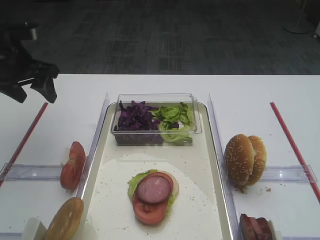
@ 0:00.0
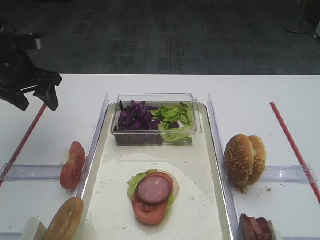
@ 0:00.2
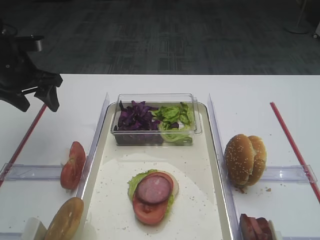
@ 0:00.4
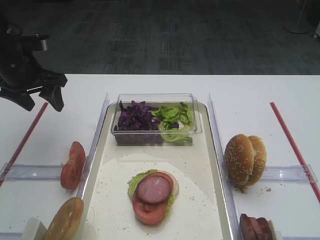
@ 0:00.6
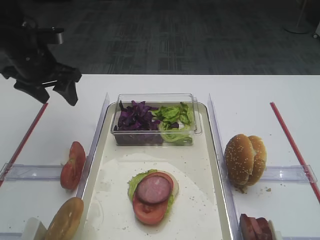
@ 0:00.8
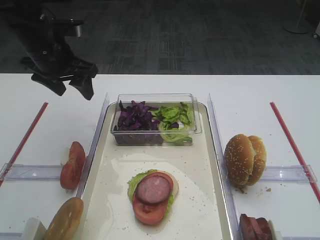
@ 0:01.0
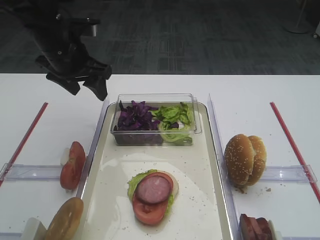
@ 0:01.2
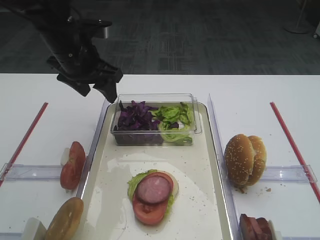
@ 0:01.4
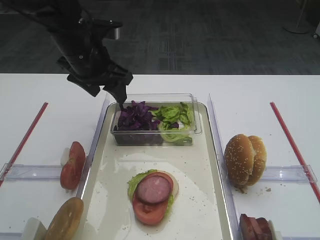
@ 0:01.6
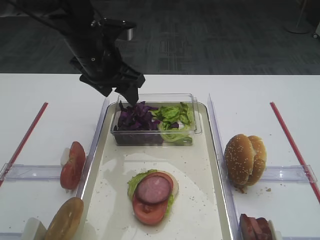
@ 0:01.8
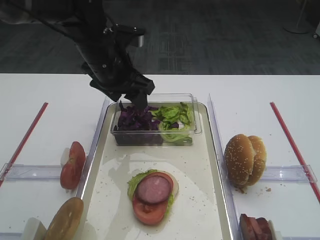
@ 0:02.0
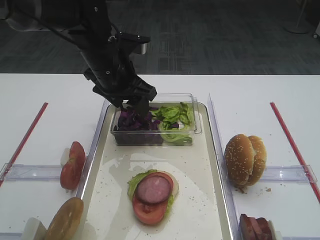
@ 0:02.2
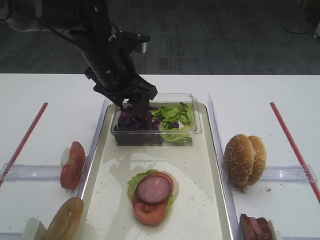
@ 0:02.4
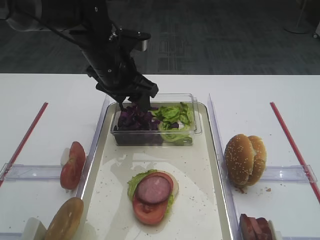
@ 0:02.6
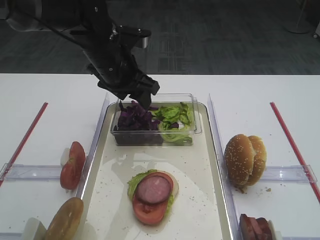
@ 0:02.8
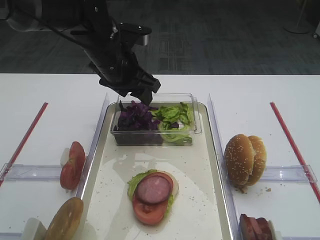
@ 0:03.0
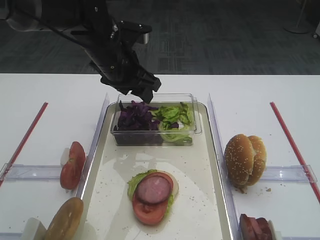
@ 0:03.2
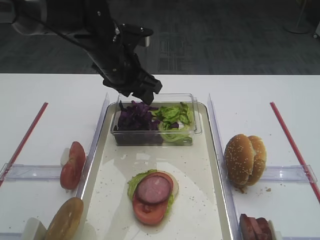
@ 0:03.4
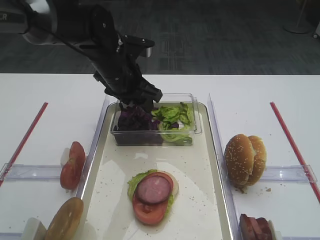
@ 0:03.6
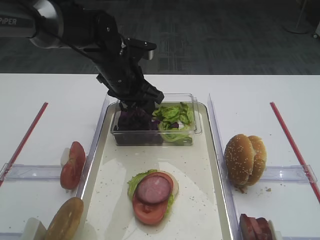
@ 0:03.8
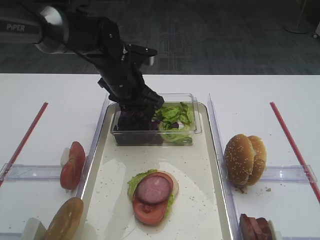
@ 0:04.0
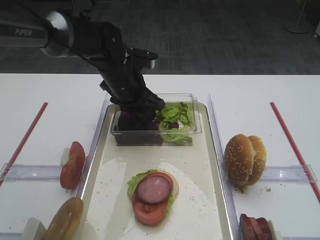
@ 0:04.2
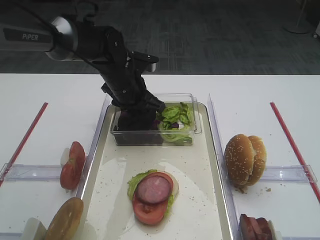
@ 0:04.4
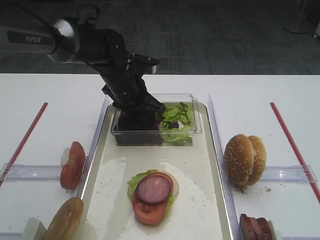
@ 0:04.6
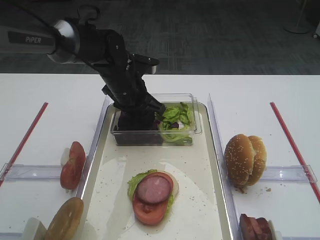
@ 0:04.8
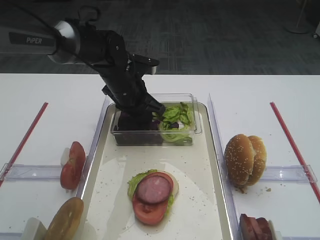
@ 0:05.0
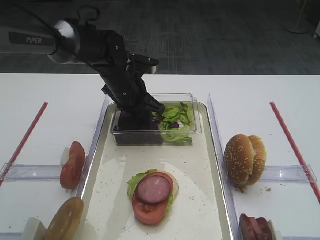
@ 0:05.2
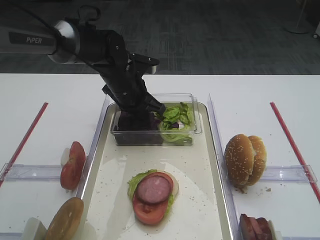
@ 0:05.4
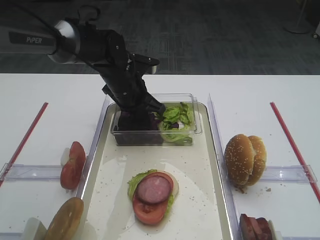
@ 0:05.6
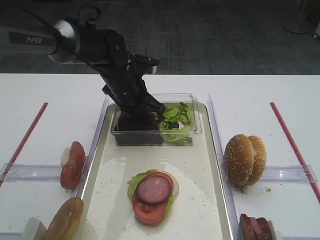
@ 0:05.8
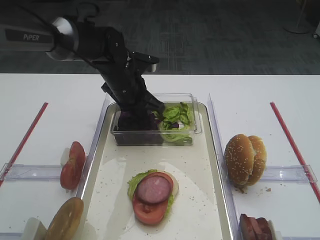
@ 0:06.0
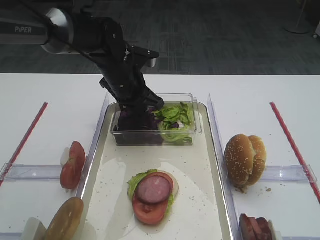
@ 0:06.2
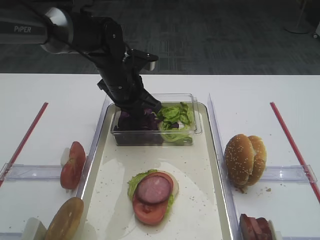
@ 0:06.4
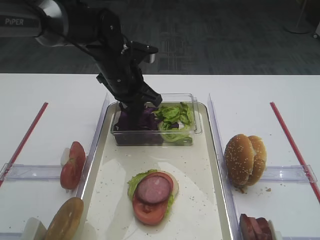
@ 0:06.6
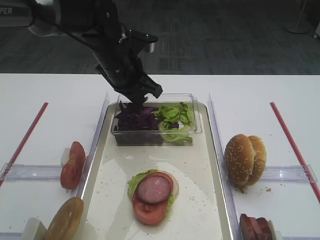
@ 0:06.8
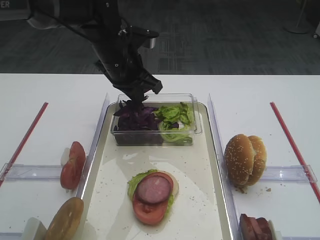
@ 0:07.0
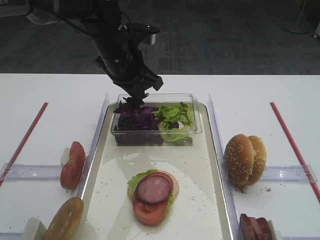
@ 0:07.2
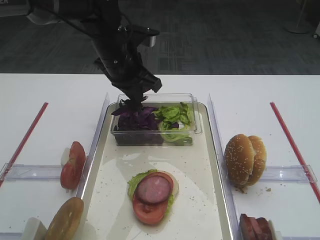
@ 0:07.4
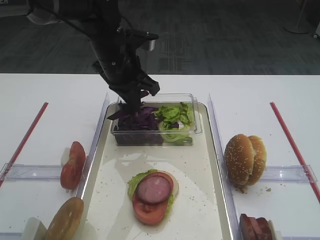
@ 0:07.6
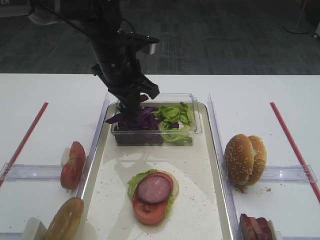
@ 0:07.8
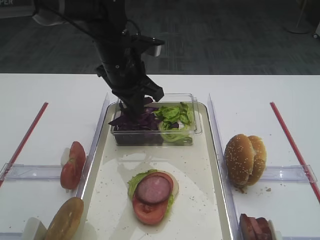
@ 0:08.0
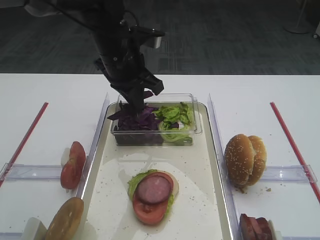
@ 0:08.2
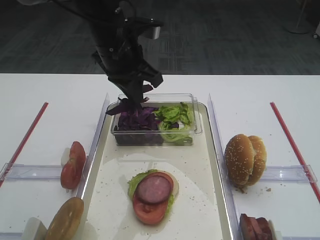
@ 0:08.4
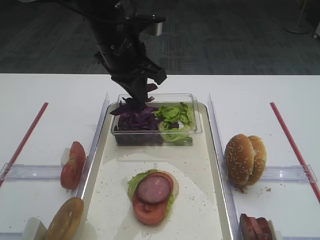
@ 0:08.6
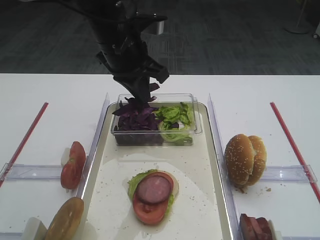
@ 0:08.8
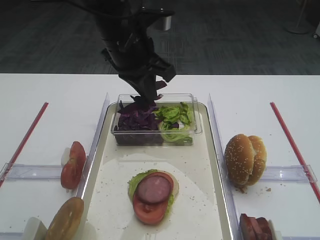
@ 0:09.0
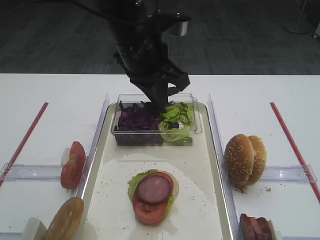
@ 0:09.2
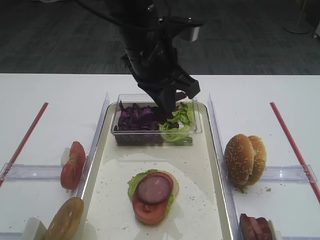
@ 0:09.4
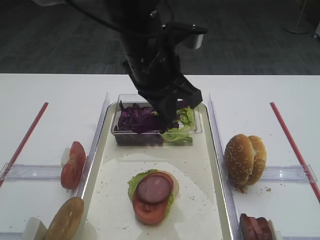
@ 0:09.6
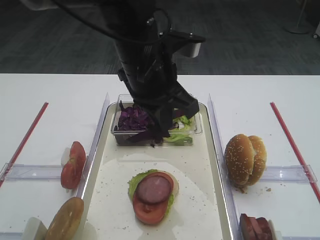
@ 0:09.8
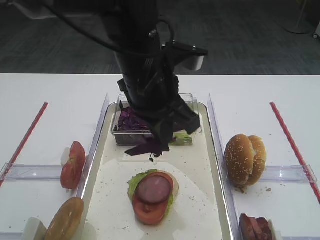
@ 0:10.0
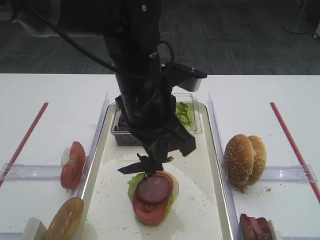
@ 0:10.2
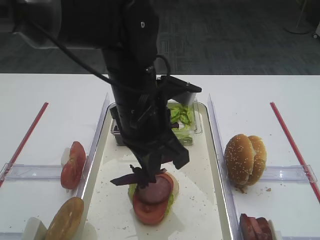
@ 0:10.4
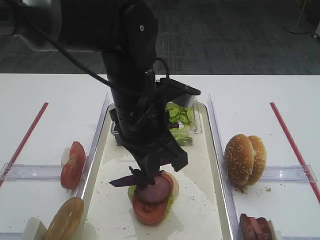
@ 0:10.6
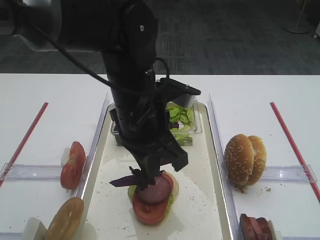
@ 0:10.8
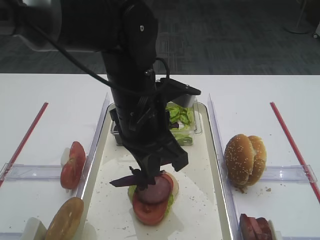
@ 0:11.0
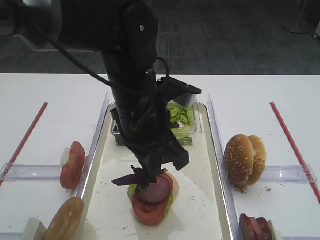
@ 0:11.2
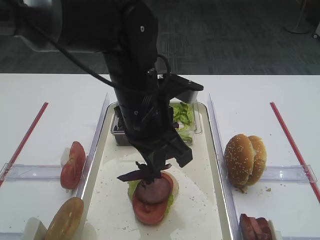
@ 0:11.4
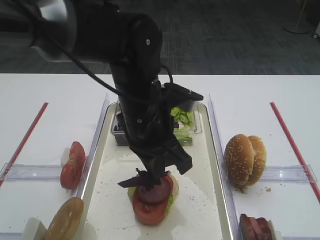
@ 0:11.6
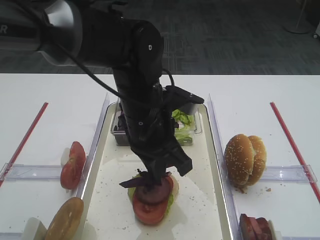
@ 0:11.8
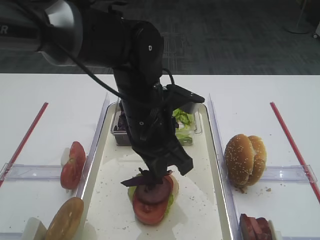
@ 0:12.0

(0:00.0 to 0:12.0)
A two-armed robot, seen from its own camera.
Step, 0:00.0 - 0:08.8: Pick up the purple cabbage with the left gripper.
0:00.0 - 0:01.6: The left gripper travels to the right by approximately 15 cm.
0:01.6 - 0:03.0: The left gripper shifts by approximately 5 cm.
0:03.0 - 0:04.4: The left gripper heads downward, covering about 5 cm.
0:06.0 - 0:07.6: The left gripper travels upward by roughly 5 cm.
0:07.6 - 0:09.0: The left gripper goes roughly 5 cm upward.
0:09.0 - 0:10.4: The left gripper moves backward and downward, roughly 10 cm.
0:10.4 - 0:12.0: The grippers stay close to where they were, moving slightly.

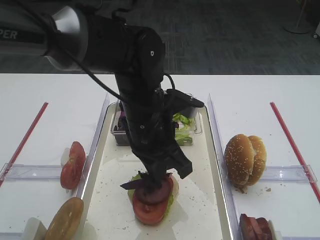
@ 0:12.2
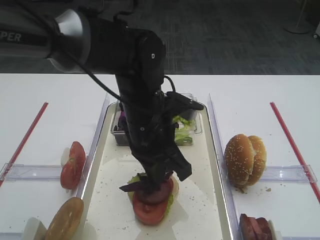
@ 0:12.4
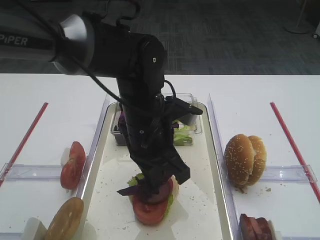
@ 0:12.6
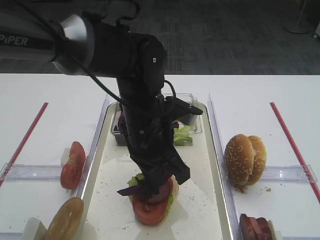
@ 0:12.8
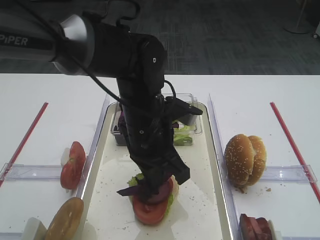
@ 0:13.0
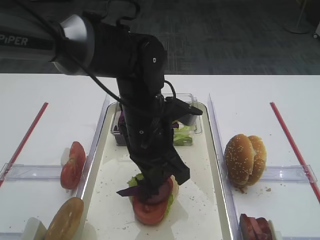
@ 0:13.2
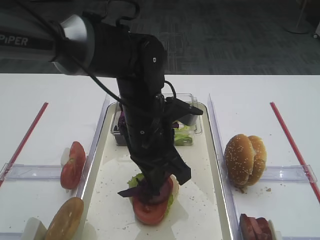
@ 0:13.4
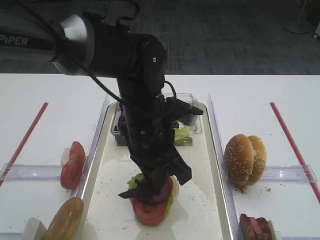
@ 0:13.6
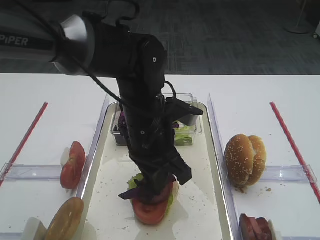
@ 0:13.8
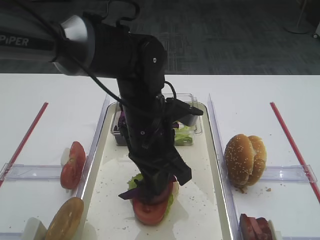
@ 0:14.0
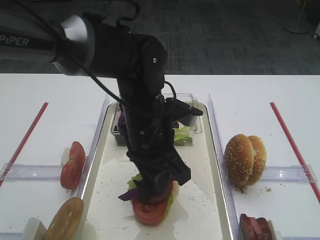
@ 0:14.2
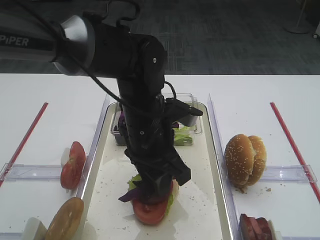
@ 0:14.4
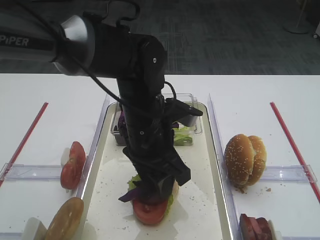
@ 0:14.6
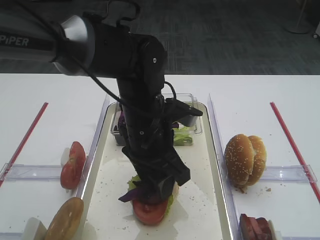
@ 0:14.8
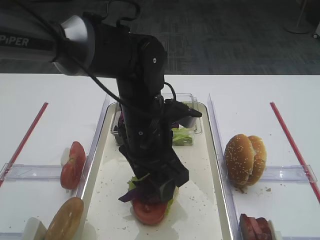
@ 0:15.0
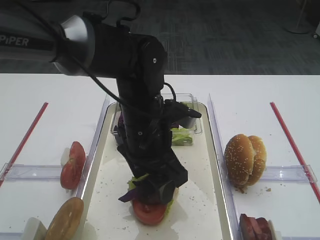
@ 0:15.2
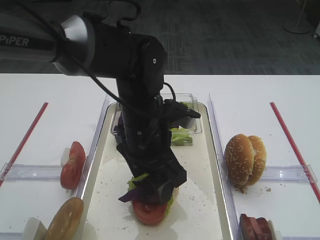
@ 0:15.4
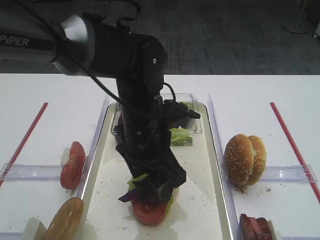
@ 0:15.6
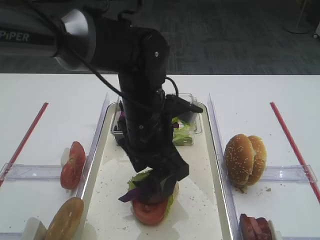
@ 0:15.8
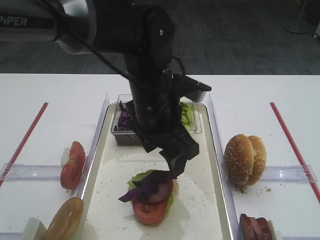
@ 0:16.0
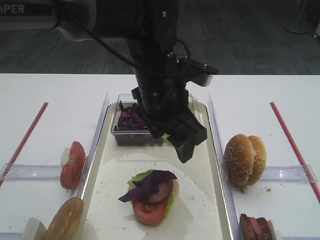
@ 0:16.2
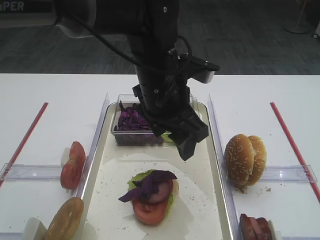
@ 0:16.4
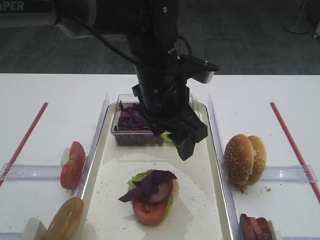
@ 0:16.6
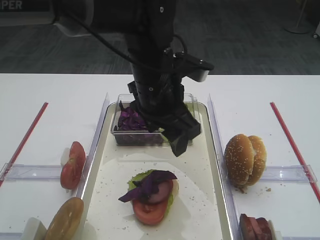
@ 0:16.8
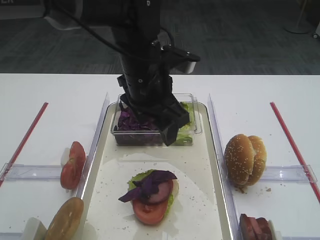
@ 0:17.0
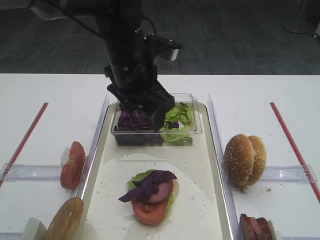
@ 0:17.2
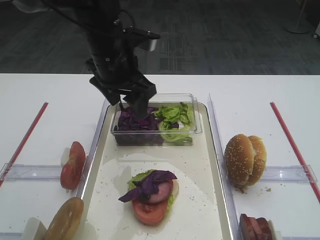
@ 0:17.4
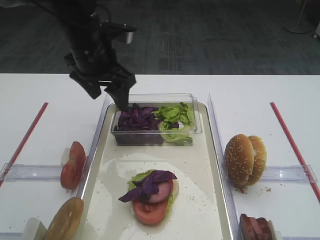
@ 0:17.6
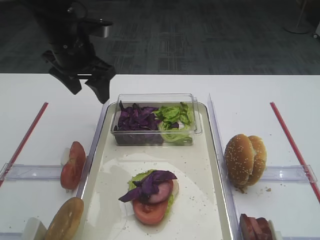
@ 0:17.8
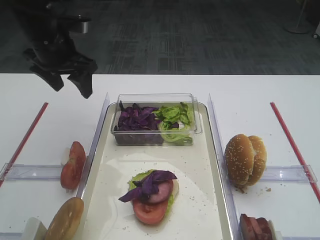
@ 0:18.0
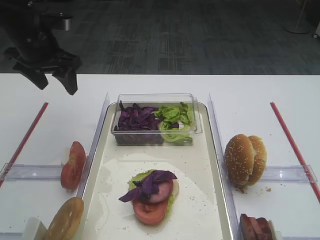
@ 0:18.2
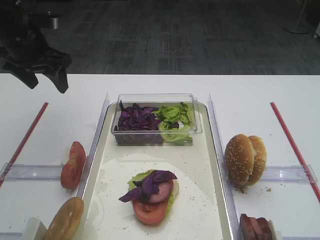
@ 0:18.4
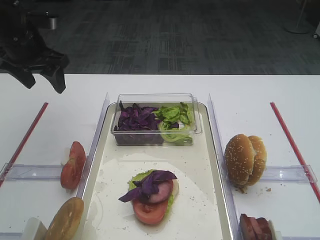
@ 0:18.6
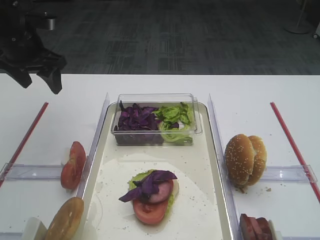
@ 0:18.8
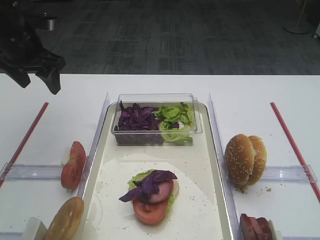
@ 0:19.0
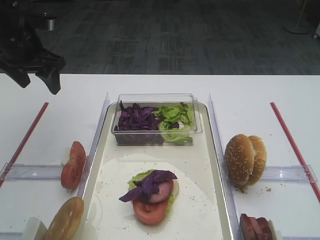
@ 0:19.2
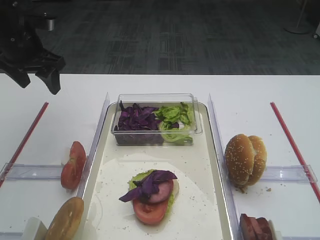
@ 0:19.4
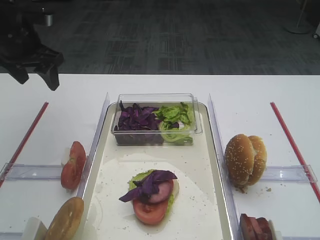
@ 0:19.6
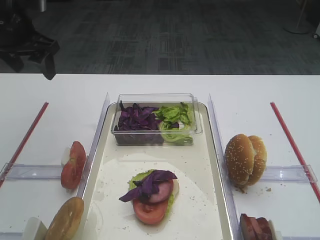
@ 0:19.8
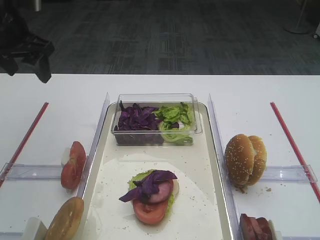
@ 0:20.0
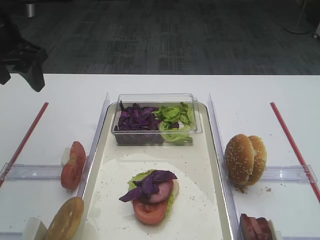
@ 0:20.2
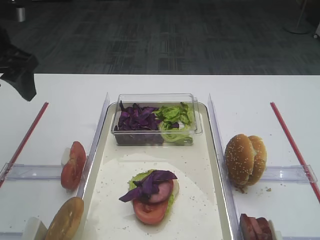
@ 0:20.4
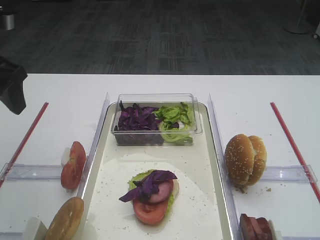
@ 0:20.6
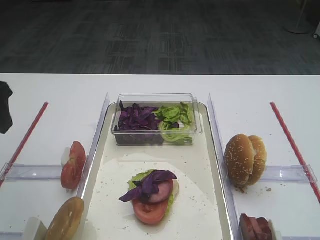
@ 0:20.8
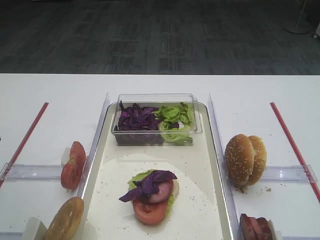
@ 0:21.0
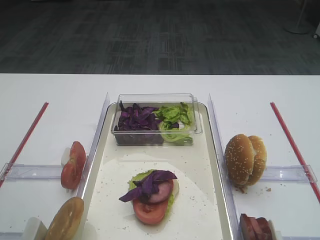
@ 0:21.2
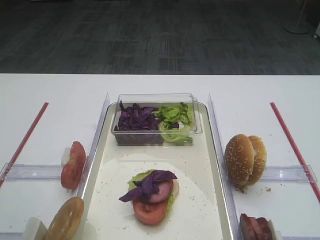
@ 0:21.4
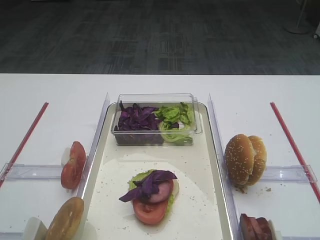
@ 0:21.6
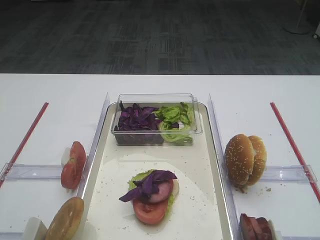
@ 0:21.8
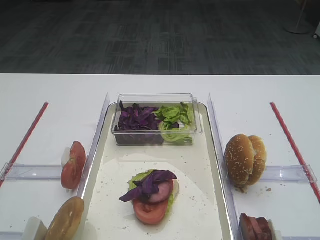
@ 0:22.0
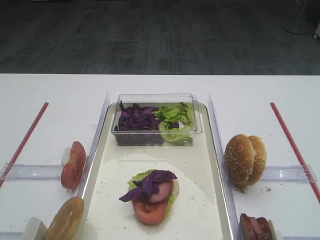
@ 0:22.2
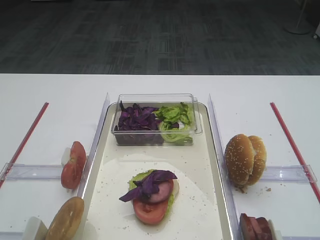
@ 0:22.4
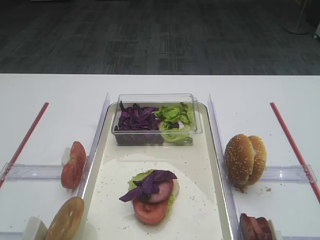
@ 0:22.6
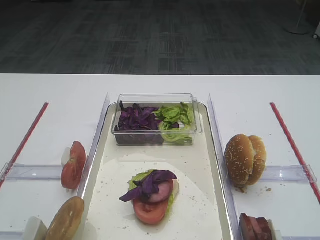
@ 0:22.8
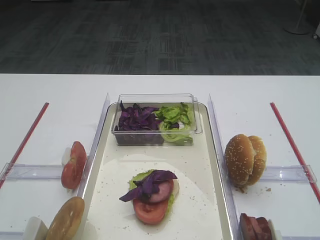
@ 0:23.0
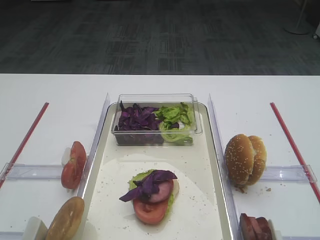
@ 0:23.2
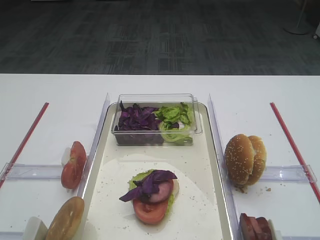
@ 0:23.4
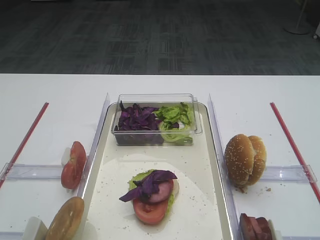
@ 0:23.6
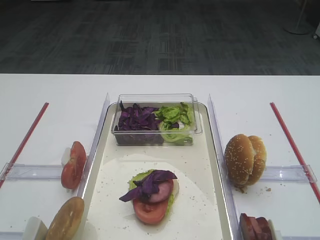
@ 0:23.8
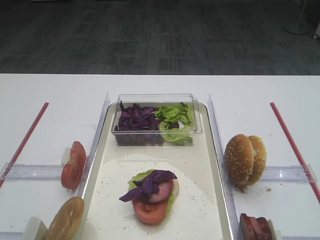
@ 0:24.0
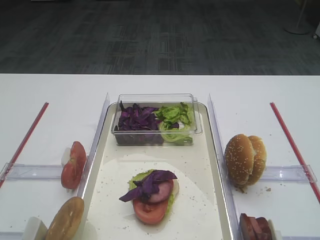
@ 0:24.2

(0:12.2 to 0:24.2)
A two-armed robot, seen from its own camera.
Step, 0:12.2 - 0:16.8: Place the purple cabbage on the cutlet with the left gripper.
0:12.2 - 0:13.8: Neither gripper changes place.
0:13.8 - 0:15.2: The left gripper opens.
0:15.2 - 0:16.6: The left gripper heads upward, covering approximately 5 cm.
0:16.6 - 0:18.2: The left gripper shifts approximately 25 cm to the left and forward.
0:18.2 - 0:19.8: The grippers stay close to where they were, moving slightly.
0:19.8 - 0:21.2: The left gripper is displaced backward by approximately 20 cm.
